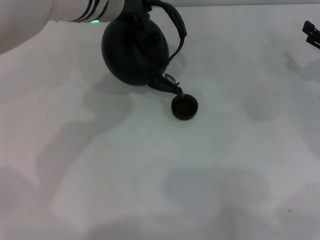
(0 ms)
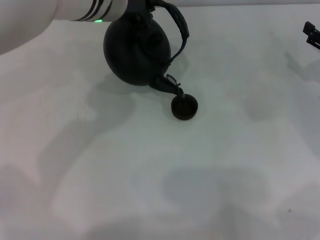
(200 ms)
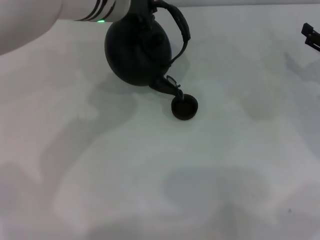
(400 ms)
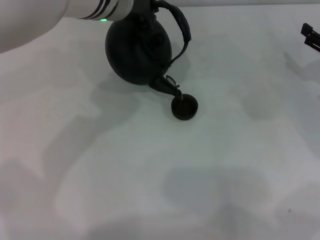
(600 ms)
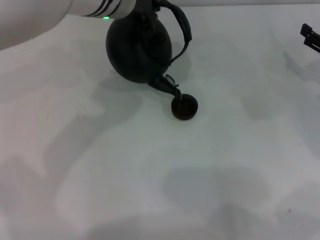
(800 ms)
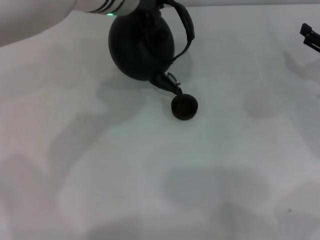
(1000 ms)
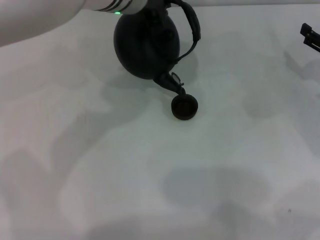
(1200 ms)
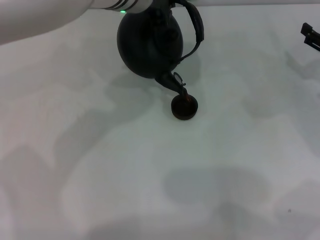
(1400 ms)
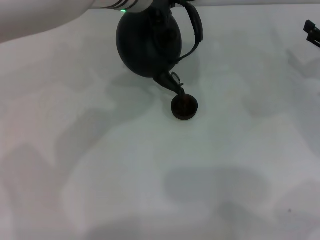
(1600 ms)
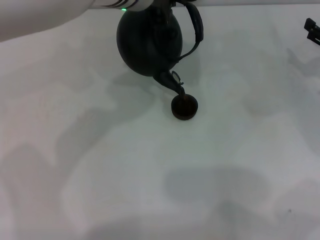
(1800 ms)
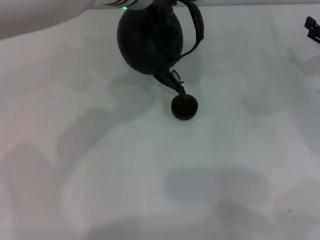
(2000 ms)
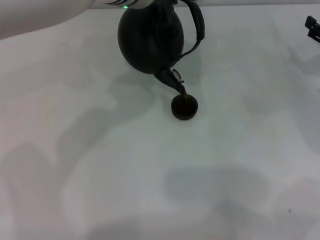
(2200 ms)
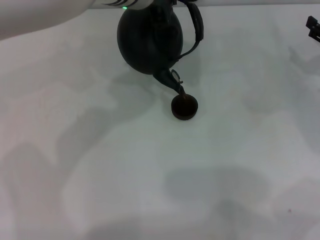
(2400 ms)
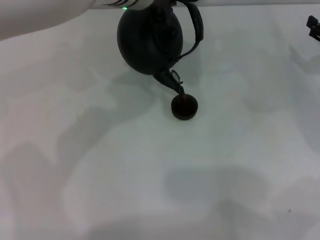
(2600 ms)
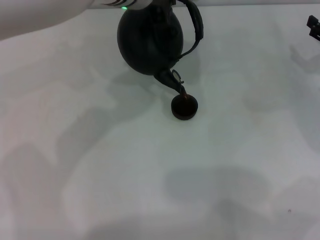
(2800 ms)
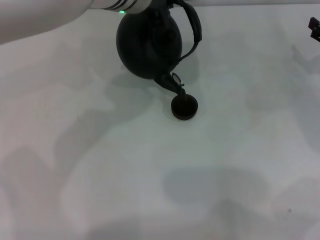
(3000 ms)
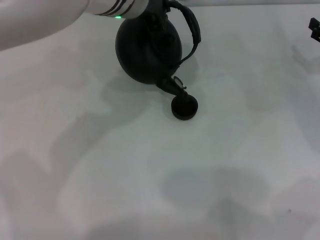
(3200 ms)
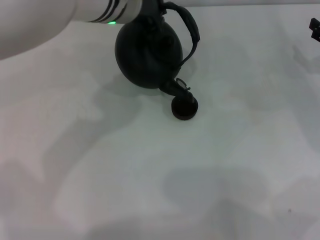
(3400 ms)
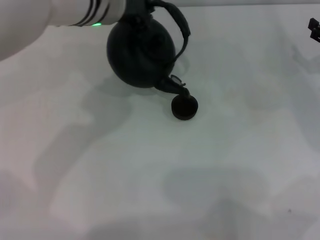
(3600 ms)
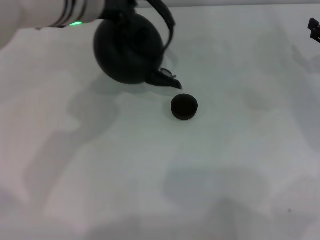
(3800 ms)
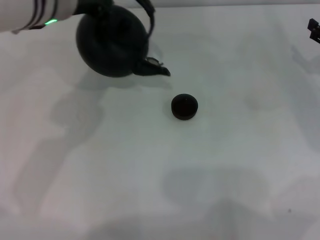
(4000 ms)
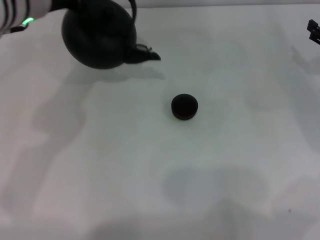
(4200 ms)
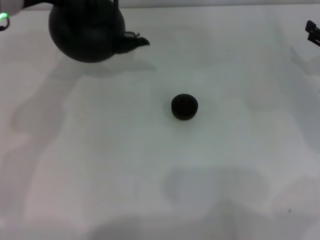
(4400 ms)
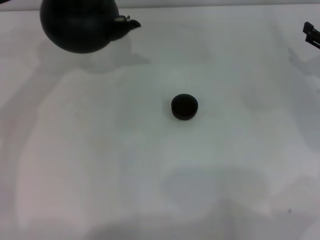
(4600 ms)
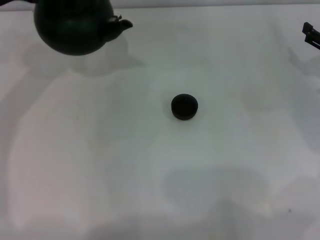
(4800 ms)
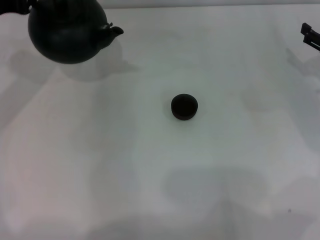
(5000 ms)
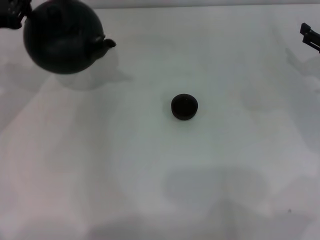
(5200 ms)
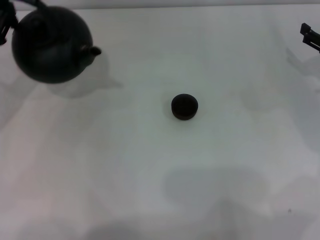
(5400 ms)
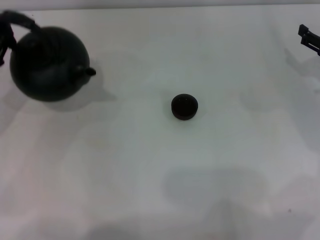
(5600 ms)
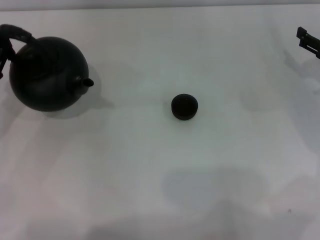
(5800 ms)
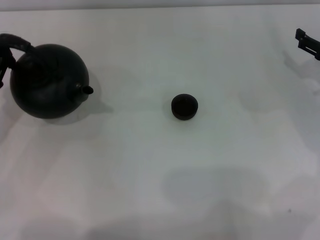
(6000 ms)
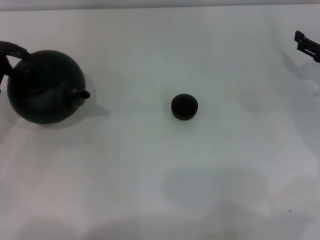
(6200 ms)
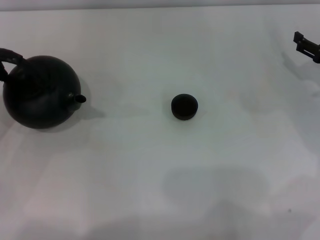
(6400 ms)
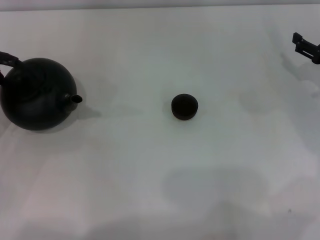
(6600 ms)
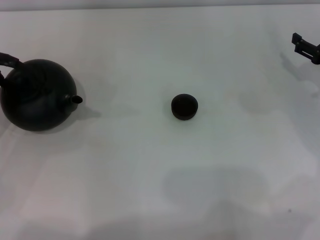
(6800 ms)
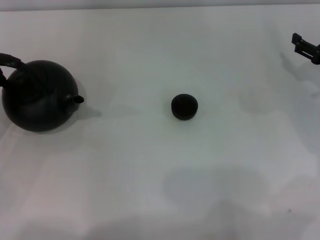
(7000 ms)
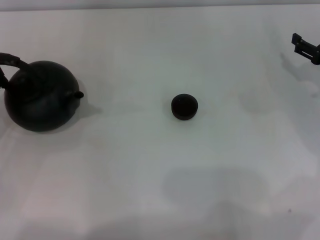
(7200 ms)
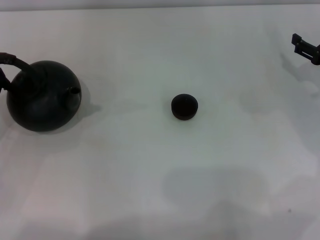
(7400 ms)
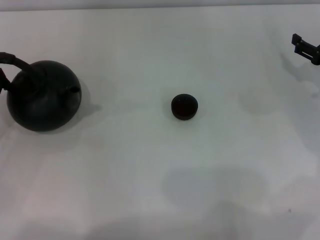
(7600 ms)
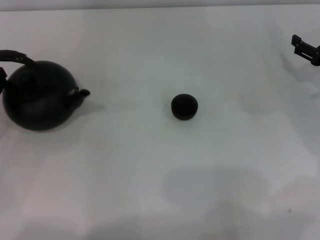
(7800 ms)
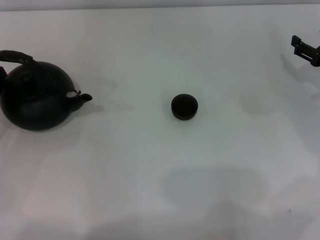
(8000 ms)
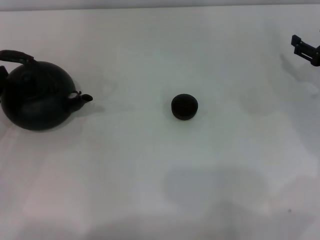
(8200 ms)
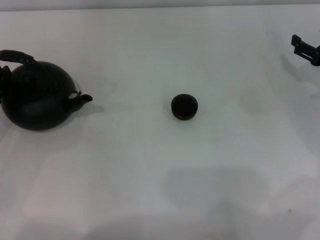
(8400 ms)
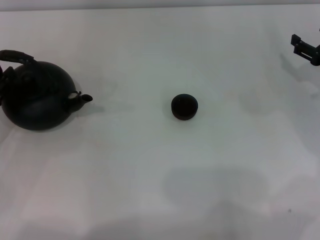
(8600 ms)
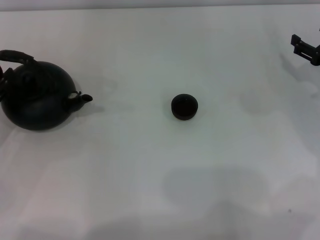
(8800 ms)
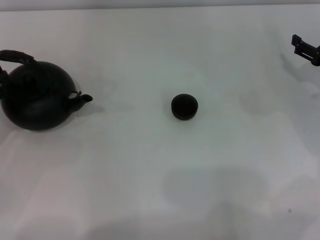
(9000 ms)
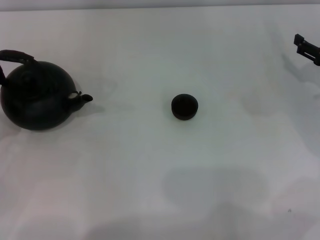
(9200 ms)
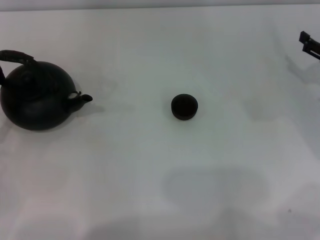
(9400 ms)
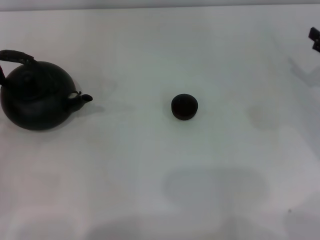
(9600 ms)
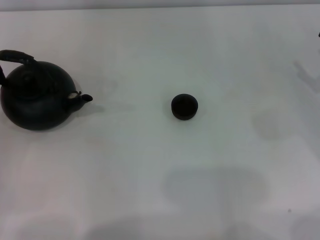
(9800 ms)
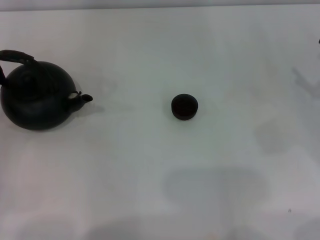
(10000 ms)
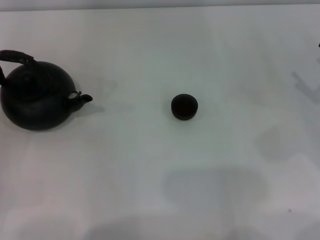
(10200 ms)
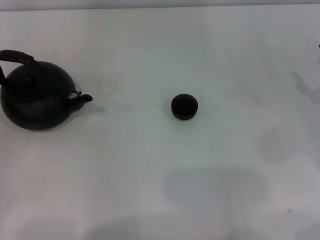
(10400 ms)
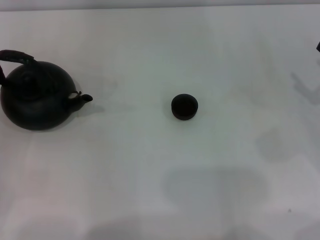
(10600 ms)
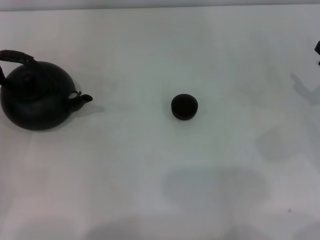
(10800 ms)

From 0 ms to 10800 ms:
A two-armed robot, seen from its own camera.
Task of the whole recording: Grasp the handle of the teapot with one hand and pour tea into the teacup.
Step, from 0 ms to 3800 ms: Pour tea into the teacup with the left gripper.
Step, from 4000 ms to 9200 ms: Put down the teapot with the left gripper.
From 0 ms to 1600 ms: The grippers stay close to where they were, moving slightly.
From 1600 ms to 3000 ms: Neither gripper changes place.
From 3000 ms to 4600 ms: The left gripper heads to the left, covering about 20 cm.
From 4600 ms to 6200 ms: The left gripper heads downward, backward and to the left, covering about 20 cm.
From 6200 ms to 7800 ms: There are only small adjustments of the grippers.
From 7800 ms to 9200 ms: The left gripper opens its fingers.
From 9200 ms to 10800 ms: The right gripper shifts about 5 cm backward.
